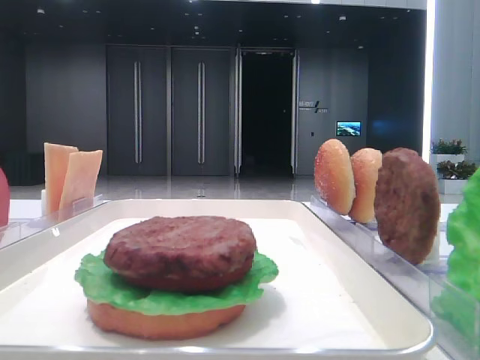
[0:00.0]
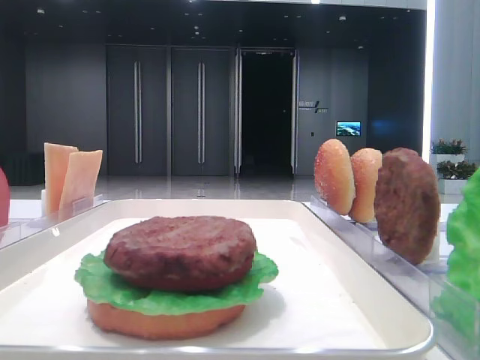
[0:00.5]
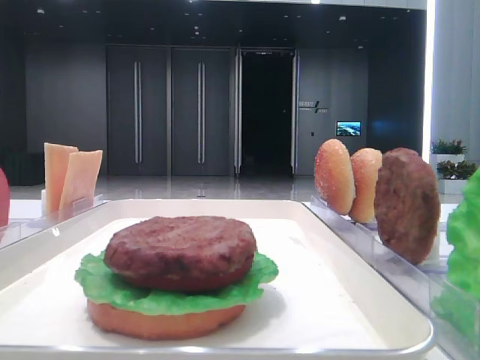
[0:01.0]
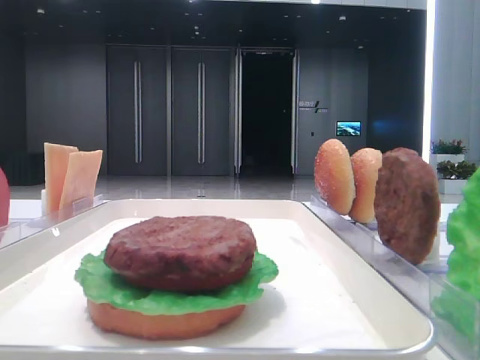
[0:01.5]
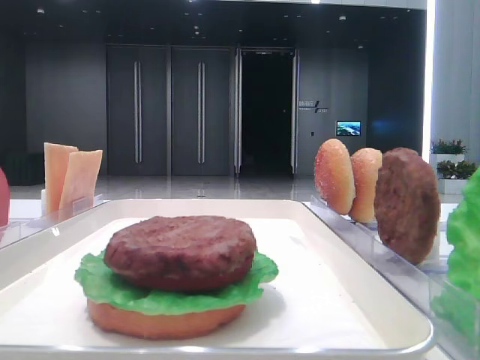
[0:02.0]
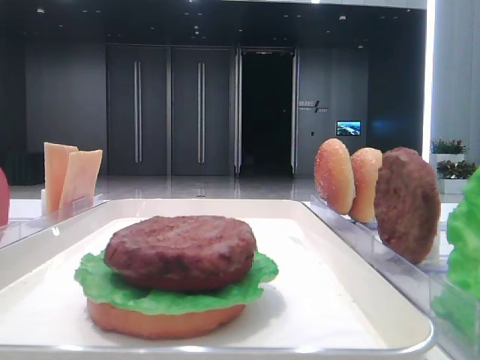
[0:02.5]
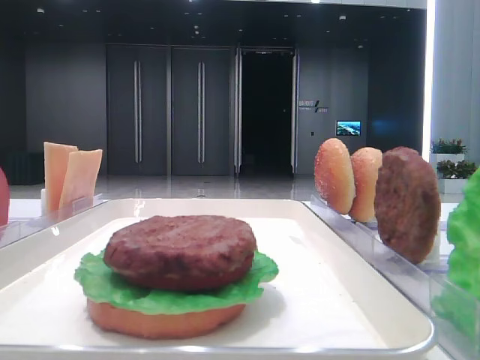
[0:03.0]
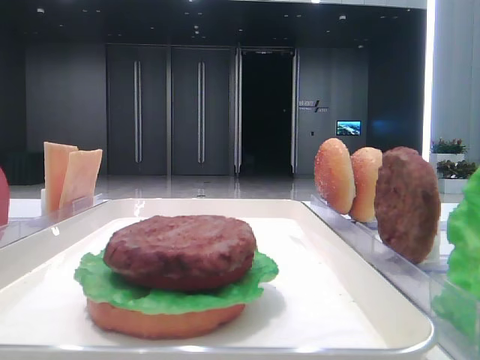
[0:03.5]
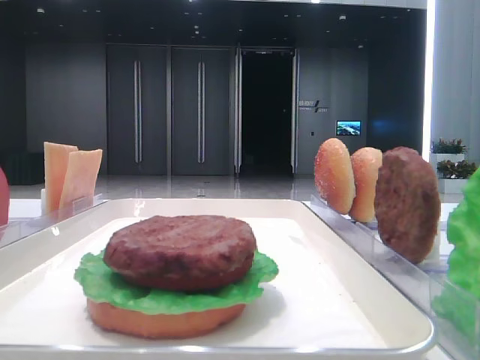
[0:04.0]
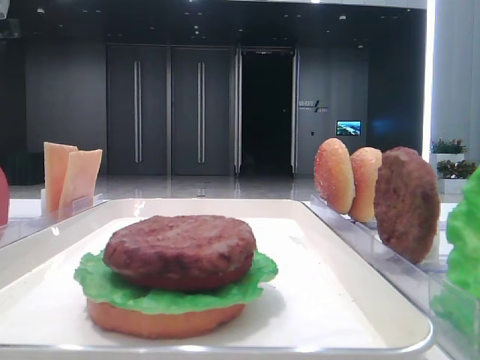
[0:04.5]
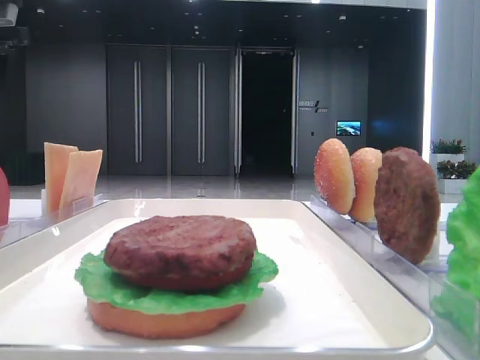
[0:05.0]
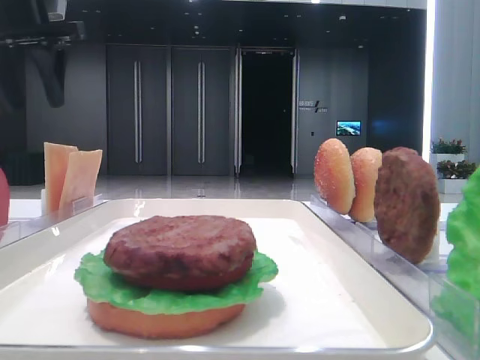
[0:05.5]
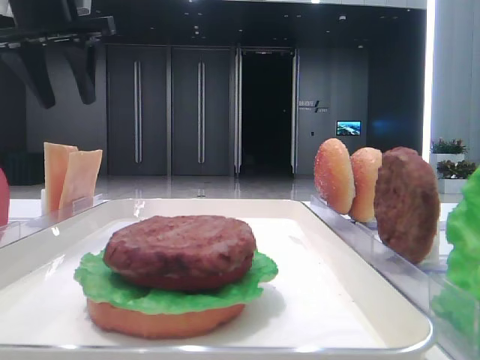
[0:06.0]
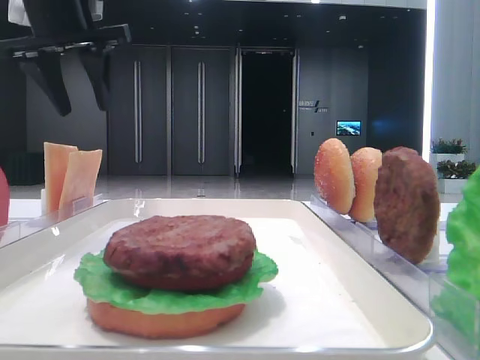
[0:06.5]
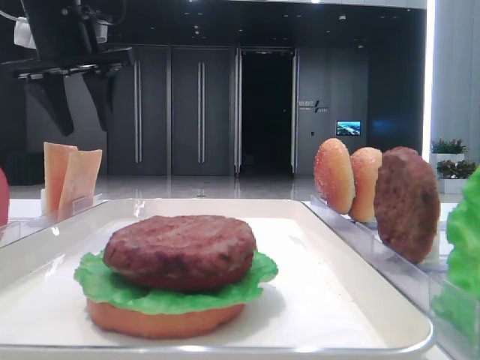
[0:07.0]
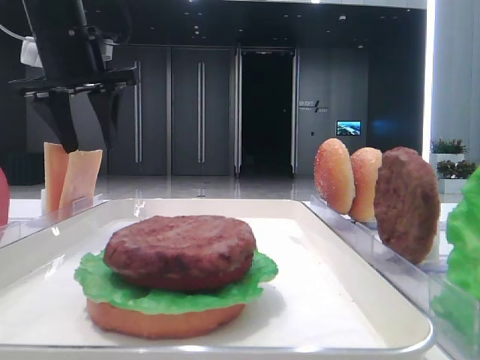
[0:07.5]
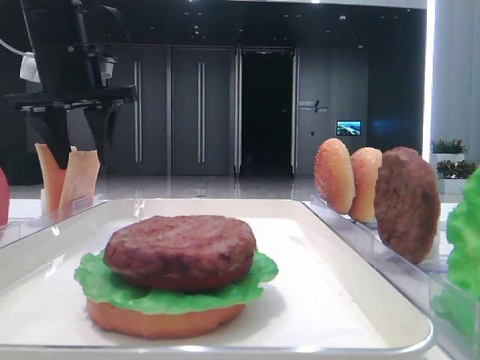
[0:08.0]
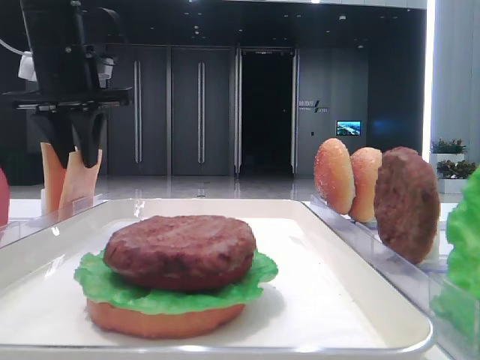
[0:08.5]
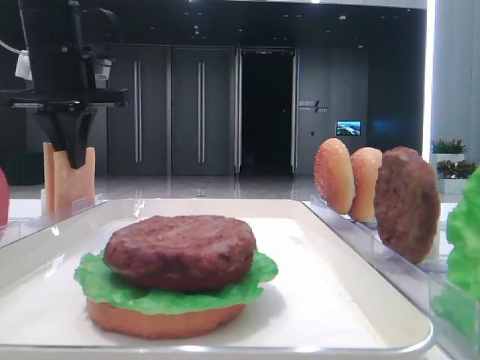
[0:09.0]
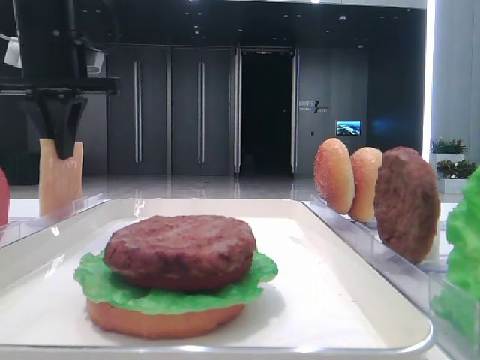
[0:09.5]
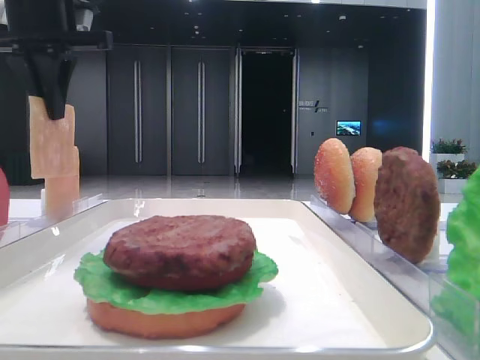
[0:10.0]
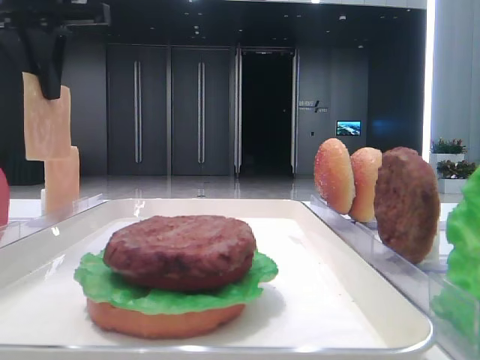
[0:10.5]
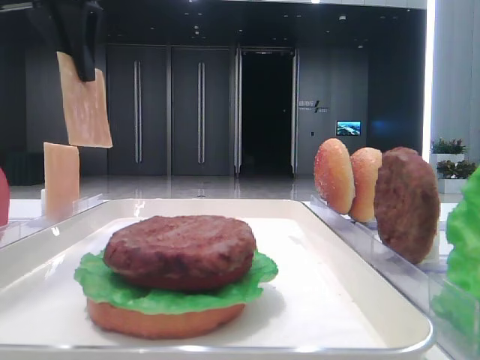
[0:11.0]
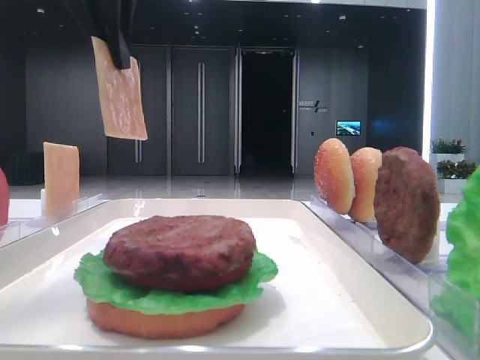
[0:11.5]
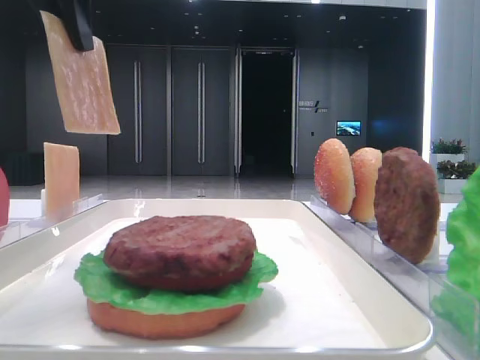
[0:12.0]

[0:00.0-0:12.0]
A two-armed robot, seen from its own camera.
Step, 0:00.0 to 0:09.0: Pick up the cheese slice with the left hand.
0:04.0 to 0:06.0: The left gripper moves to the right, some 10 cm.
0:06.0 to 0:08.0: The left gripper is displaced downward by some 5 cm.
0:08.0 to 0:10.0: The left gripper heads upward, covering approximately 5 cm, and closes.
0:10.0 to 0:12.0: The left gripper goes some 15 cm backward and to the right.

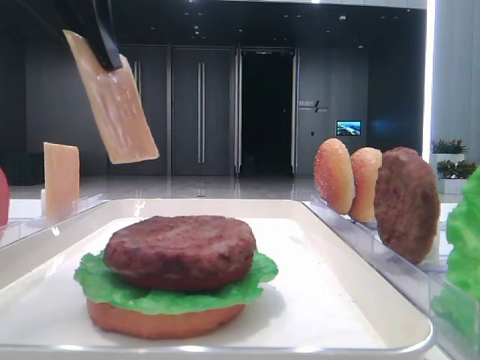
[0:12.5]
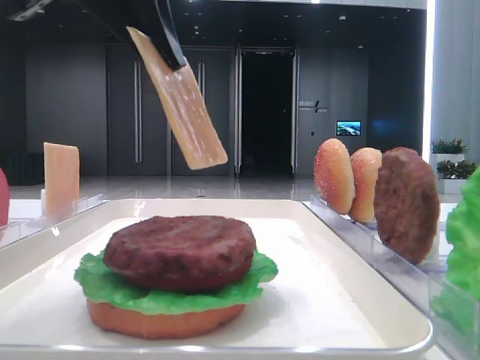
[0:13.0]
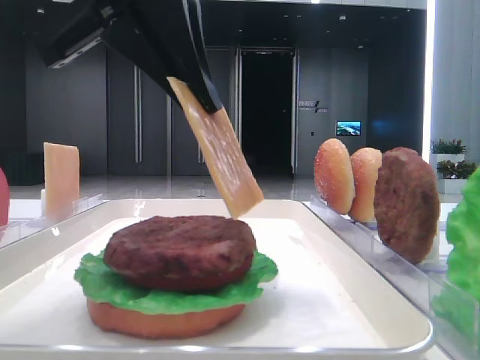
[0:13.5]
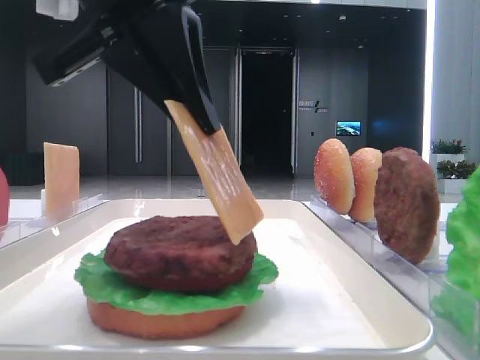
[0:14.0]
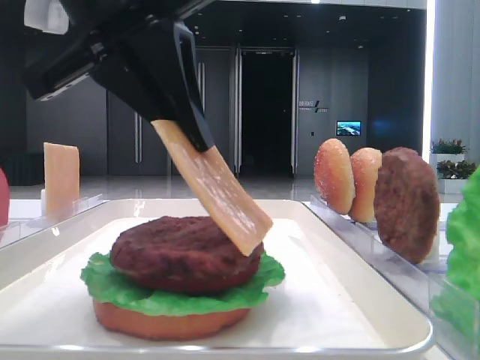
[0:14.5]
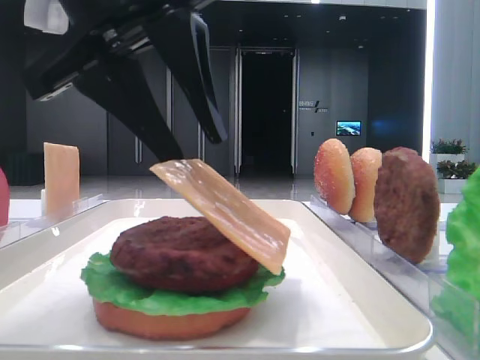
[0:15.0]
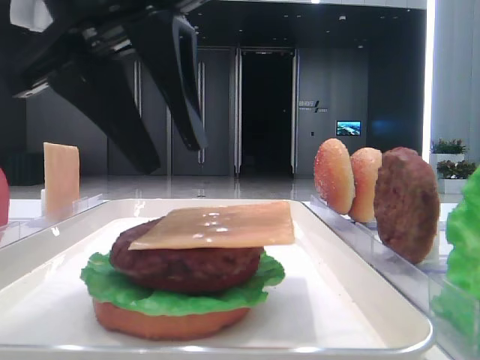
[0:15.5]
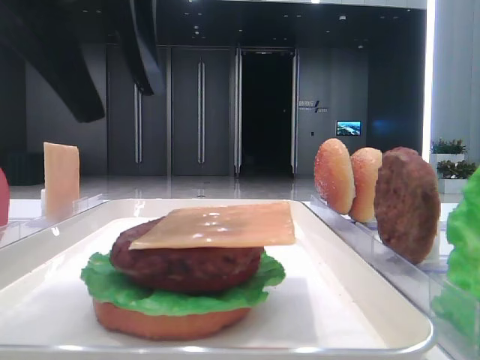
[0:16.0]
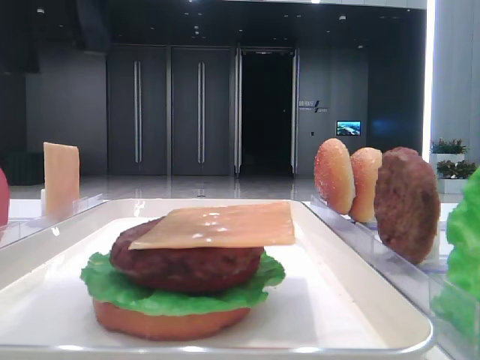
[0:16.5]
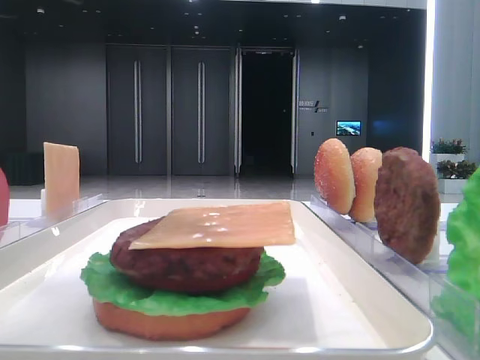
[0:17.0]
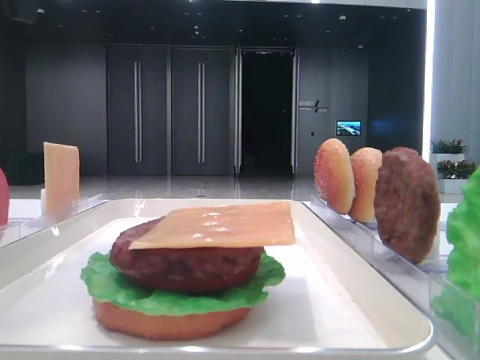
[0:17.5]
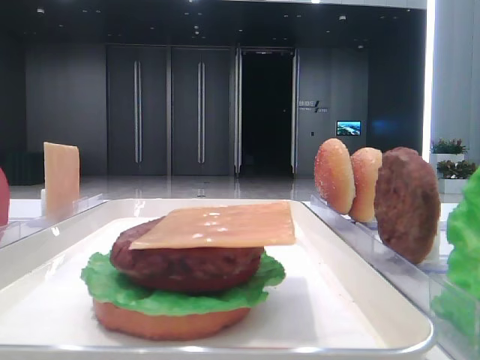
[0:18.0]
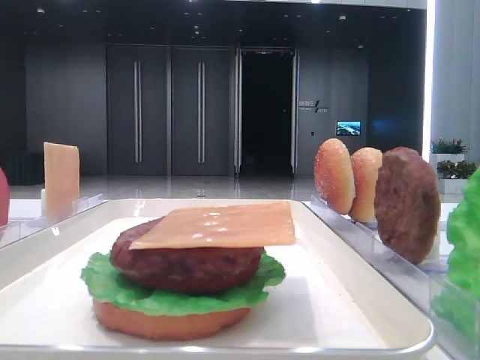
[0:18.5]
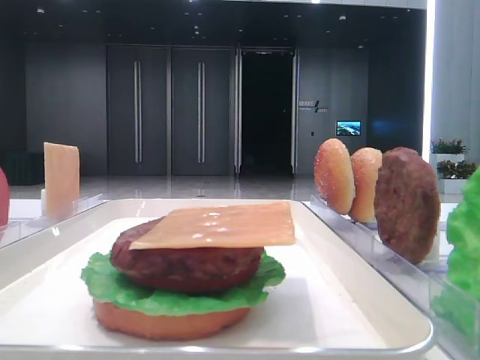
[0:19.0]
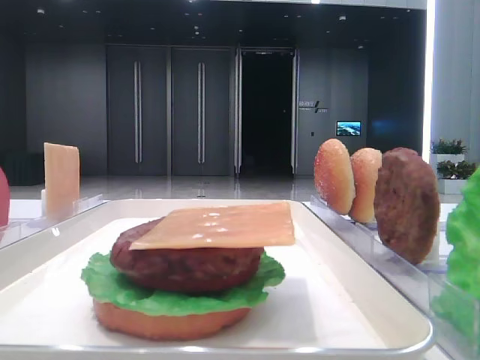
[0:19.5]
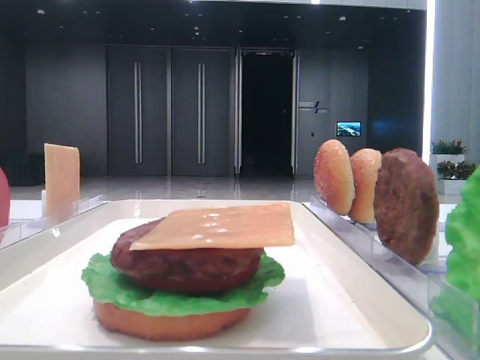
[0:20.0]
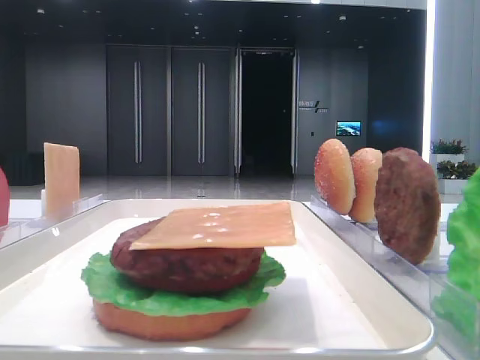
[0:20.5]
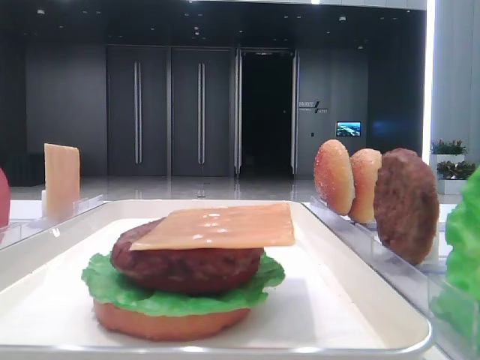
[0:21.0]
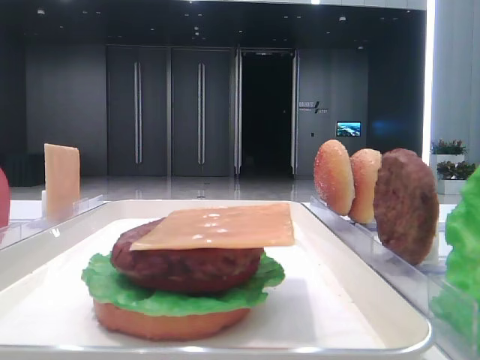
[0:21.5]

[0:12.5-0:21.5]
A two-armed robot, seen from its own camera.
Step, 0:12.5 to 0:15.0: Place the cheese slice on the patty with the left hand.
0:12.5 to 0:14.5: The left gripper heads downward and to the right, covering some 10 cm.
0:14.5 to 0:17.0: The left gripper is displaced upward by about 10 cm, and opens up.
0:17.0 to 0:19.5: The left gripper shifts roughly 20 cm to the left and backward.
0:19.5 to 0:21.5: The left gripper goes some 15 cm backward and downward.

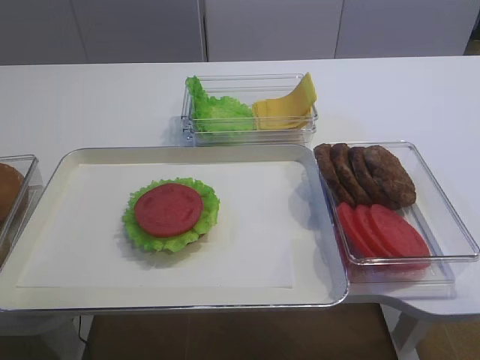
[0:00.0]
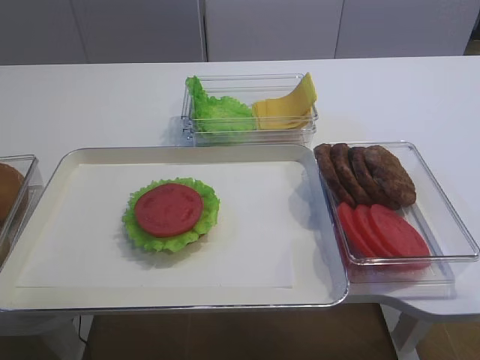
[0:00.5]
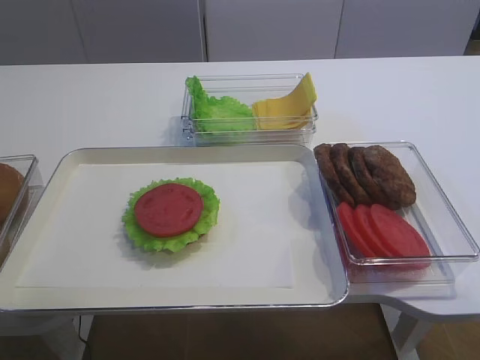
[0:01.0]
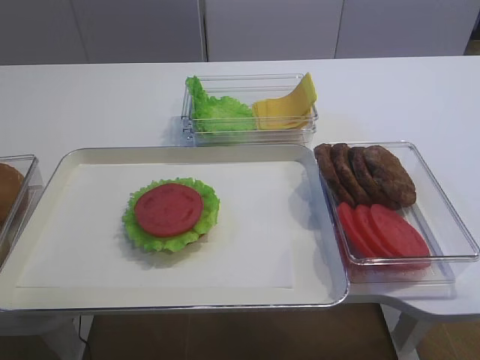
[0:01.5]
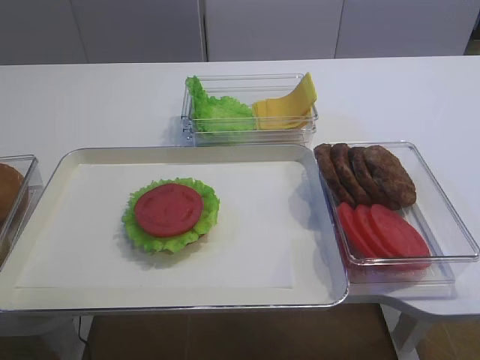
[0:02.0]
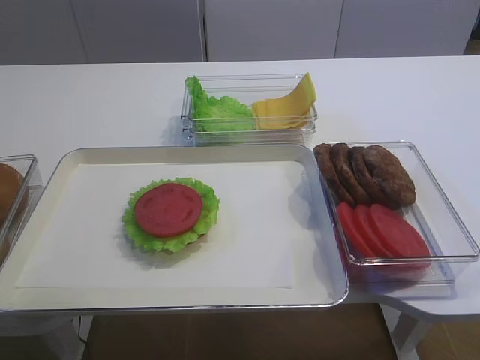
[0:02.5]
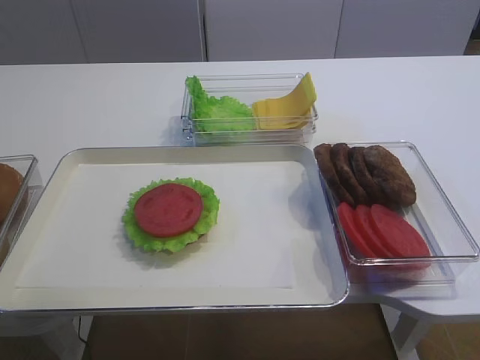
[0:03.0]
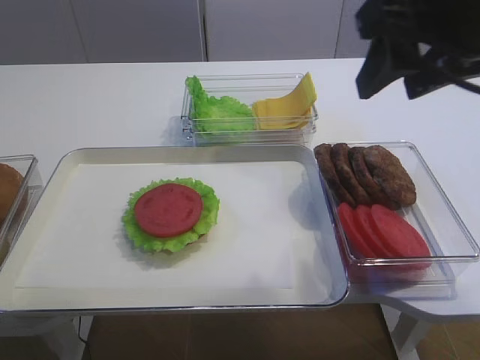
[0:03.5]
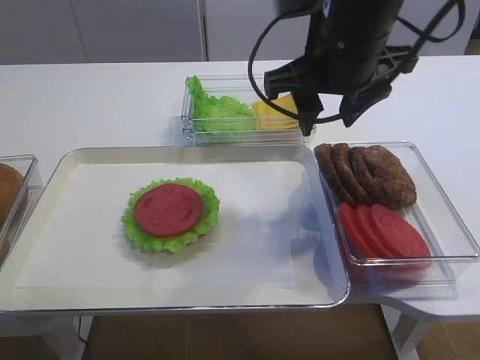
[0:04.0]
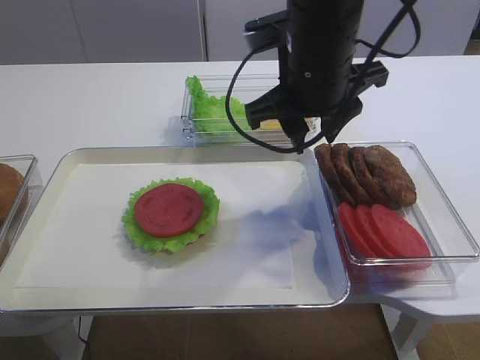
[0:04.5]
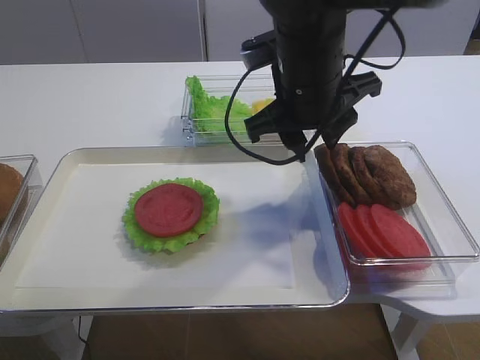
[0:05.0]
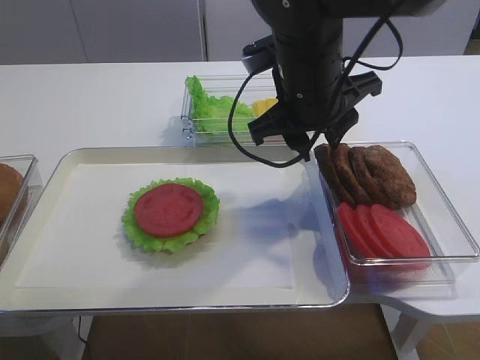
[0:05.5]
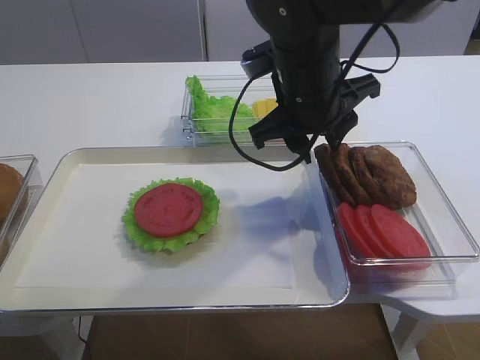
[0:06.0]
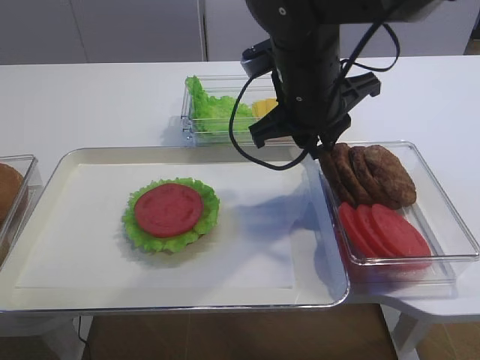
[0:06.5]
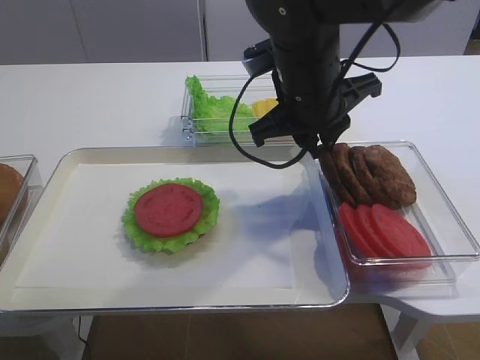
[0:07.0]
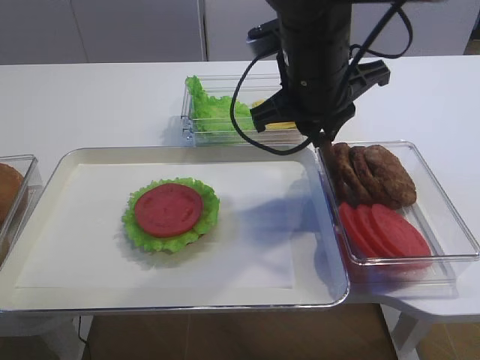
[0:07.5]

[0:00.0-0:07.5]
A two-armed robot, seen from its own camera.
0:02.0 to 0:04.0: The right gripper is displaced forward and to the left by approximately 35 cm.
0:04.0 to 0:05.5: The right gripper moves downward, some 5 cm.
0:05.5 to 0:07.5: The right gripper closes up.
